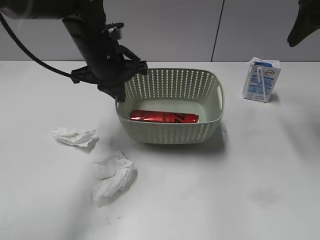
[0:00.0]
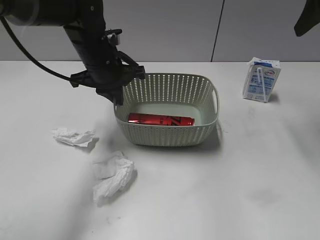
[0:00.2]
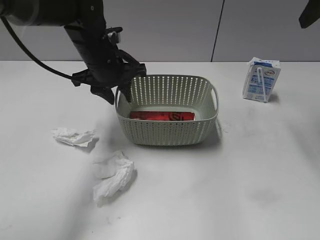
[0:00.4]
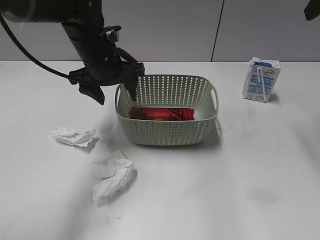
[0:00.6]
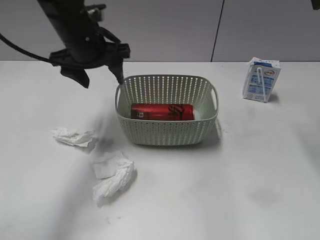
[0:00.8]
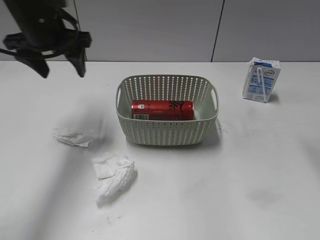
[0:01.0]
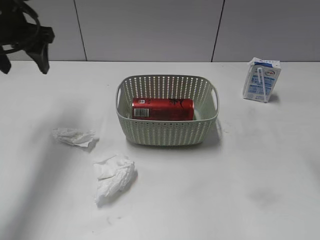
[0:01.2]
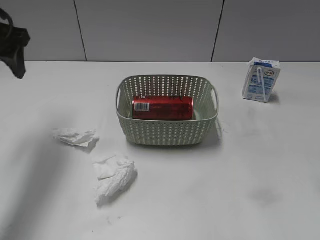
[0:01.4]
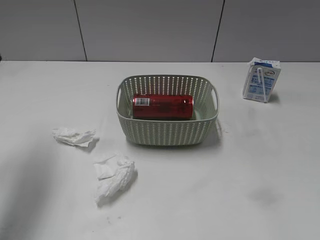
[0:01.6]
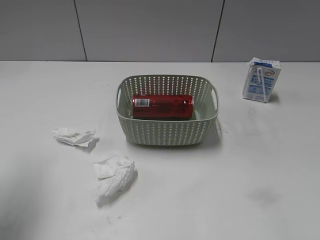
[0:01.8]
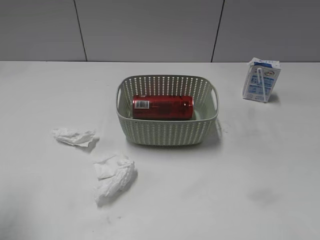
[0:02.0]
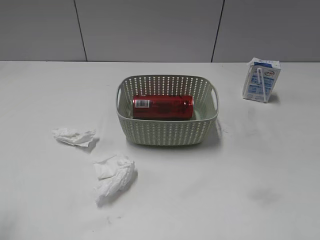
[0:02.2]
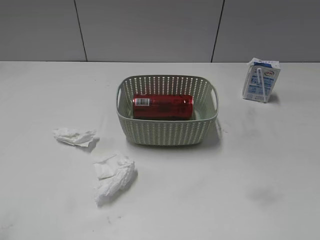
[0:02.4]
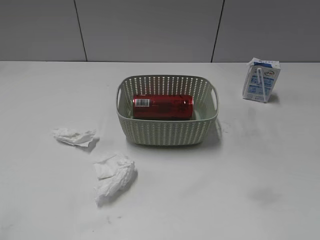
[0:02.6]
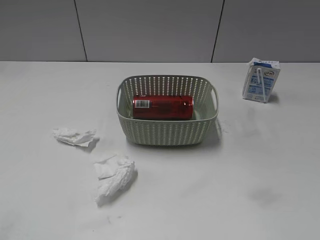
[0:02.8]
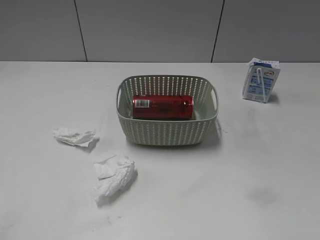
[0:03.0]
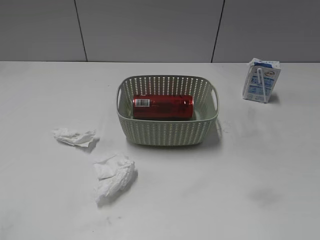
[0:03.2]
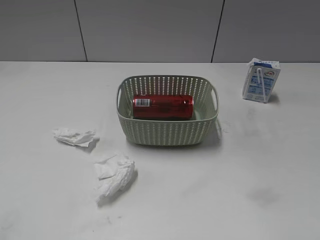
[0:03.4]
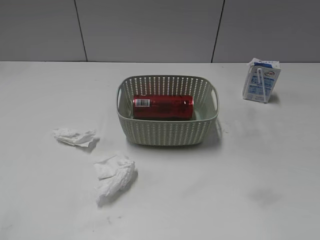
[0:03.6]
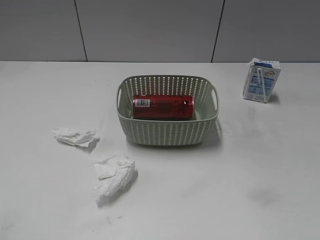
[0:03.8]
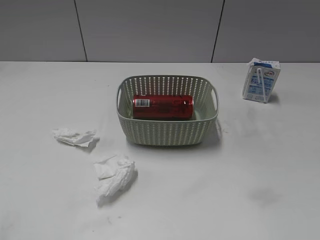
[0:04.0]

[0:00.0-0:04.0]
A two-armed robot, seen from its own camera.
0:00.0 to 0:01.4: The left gripper is displaced to the left and upward by about 20 cm, and opens; the right gripper goes approximately 15 cm backward.
0:01.4 to 0:02.6: The left gripper travels backward by some 30 cm.
